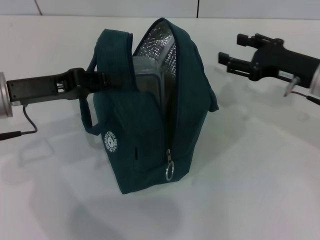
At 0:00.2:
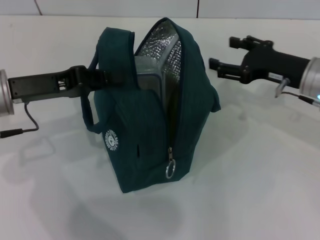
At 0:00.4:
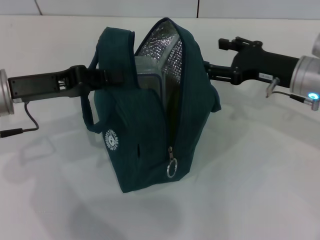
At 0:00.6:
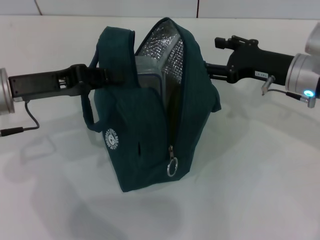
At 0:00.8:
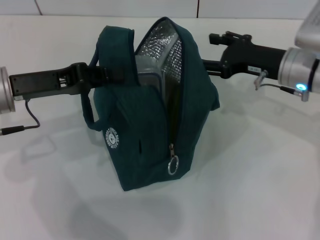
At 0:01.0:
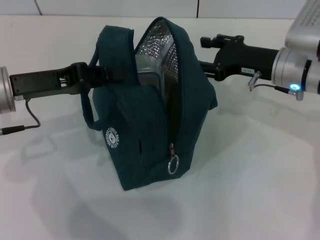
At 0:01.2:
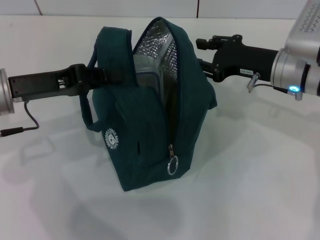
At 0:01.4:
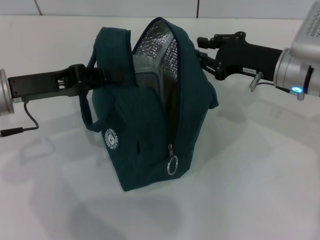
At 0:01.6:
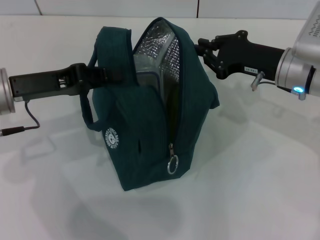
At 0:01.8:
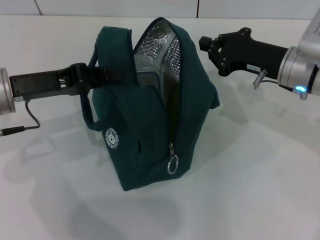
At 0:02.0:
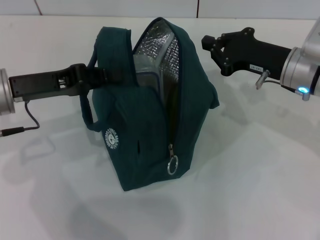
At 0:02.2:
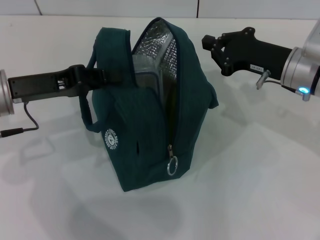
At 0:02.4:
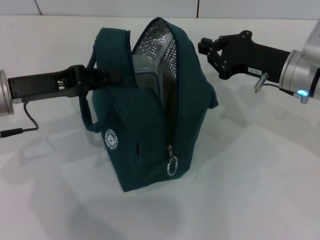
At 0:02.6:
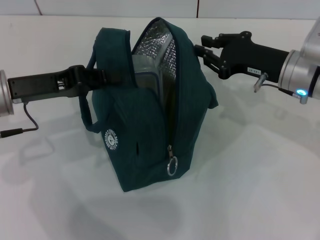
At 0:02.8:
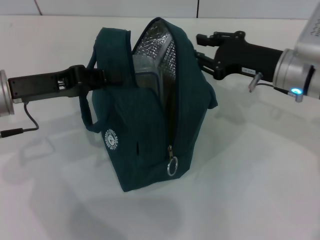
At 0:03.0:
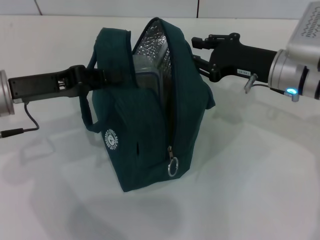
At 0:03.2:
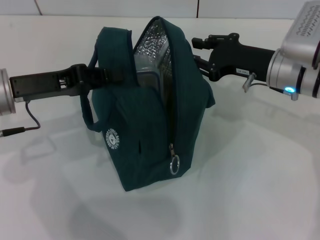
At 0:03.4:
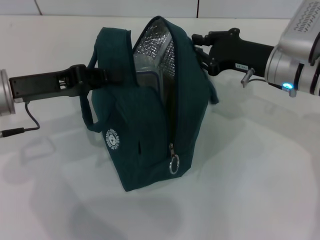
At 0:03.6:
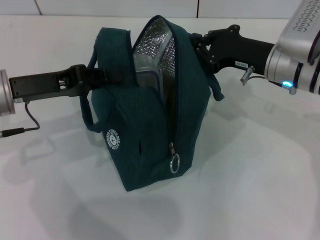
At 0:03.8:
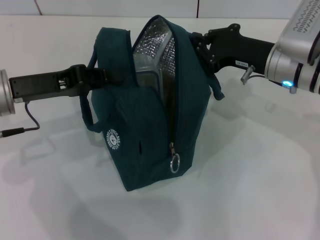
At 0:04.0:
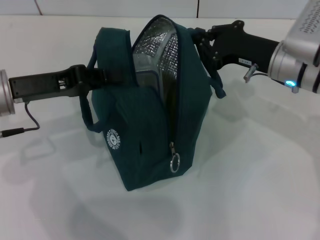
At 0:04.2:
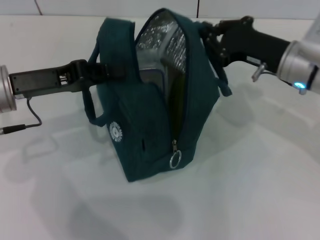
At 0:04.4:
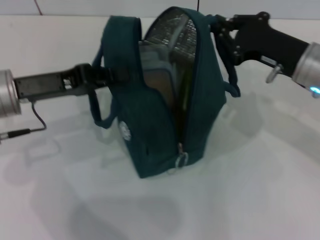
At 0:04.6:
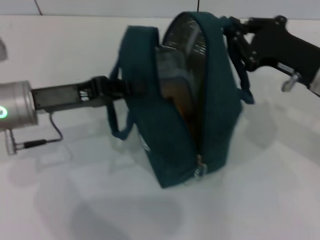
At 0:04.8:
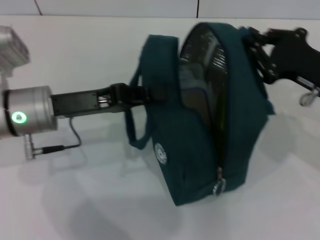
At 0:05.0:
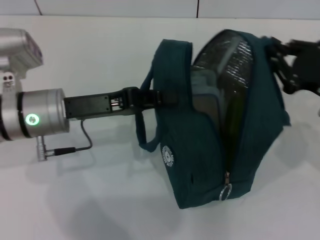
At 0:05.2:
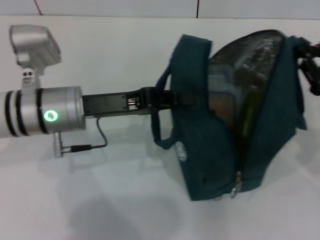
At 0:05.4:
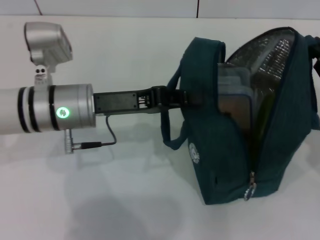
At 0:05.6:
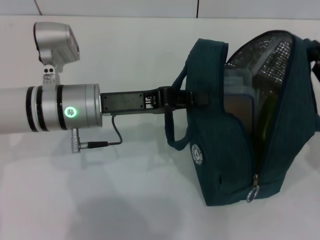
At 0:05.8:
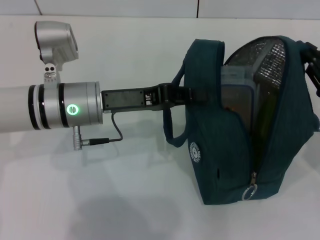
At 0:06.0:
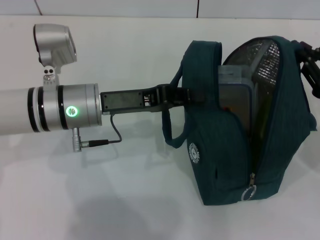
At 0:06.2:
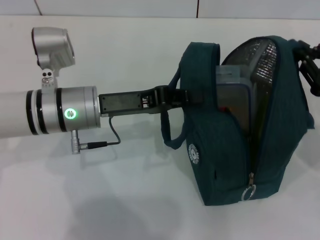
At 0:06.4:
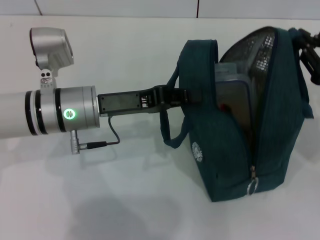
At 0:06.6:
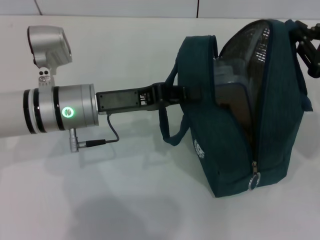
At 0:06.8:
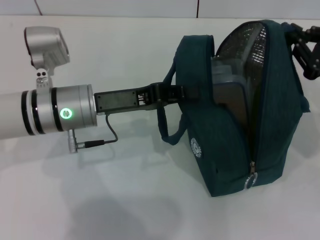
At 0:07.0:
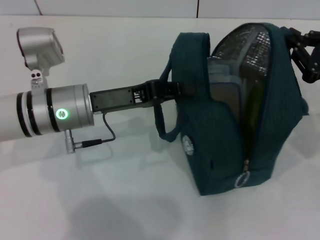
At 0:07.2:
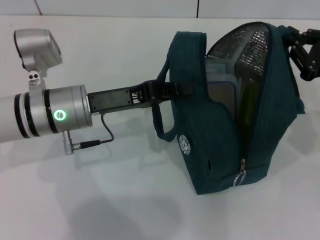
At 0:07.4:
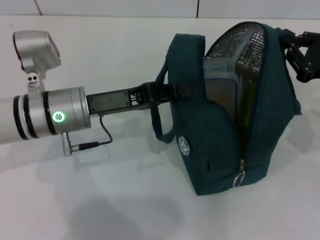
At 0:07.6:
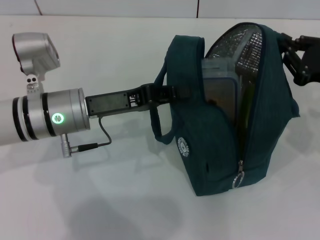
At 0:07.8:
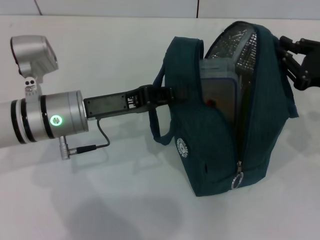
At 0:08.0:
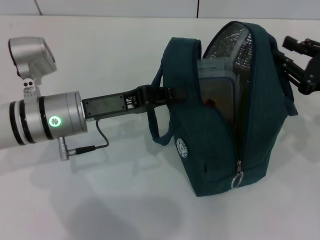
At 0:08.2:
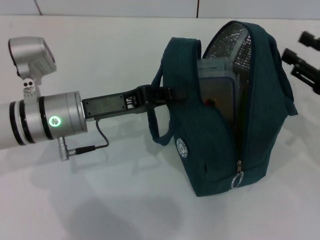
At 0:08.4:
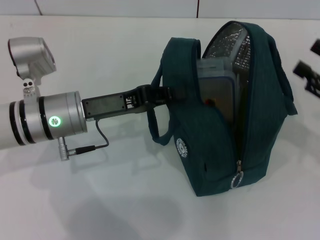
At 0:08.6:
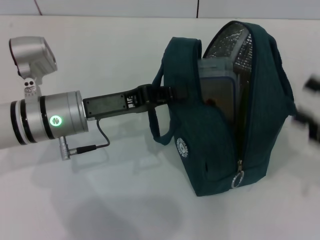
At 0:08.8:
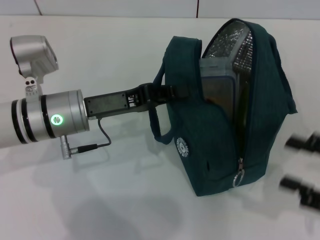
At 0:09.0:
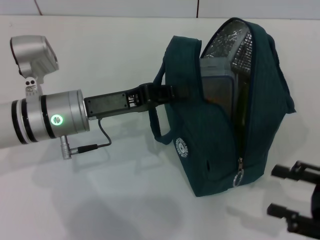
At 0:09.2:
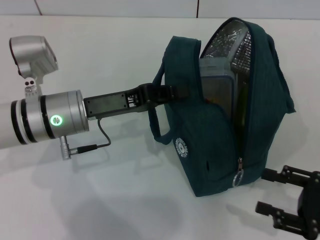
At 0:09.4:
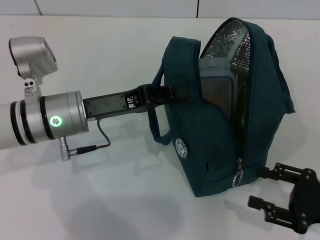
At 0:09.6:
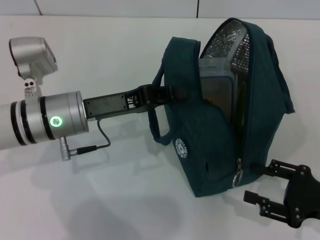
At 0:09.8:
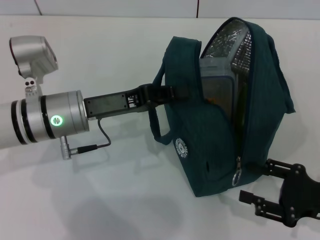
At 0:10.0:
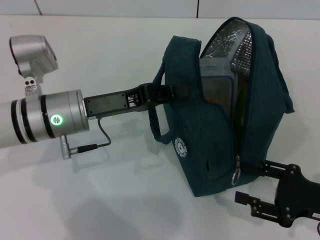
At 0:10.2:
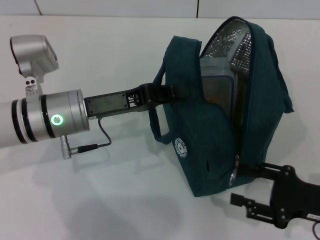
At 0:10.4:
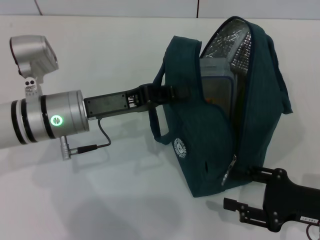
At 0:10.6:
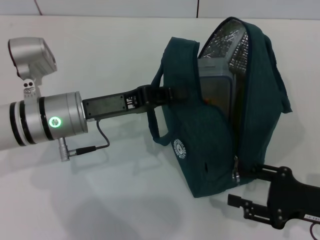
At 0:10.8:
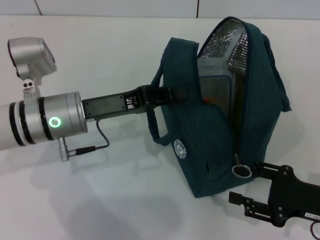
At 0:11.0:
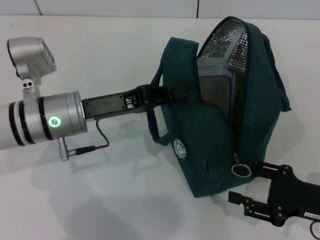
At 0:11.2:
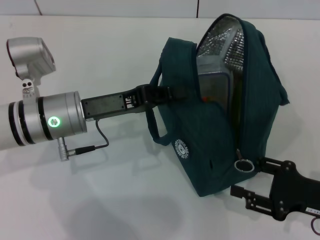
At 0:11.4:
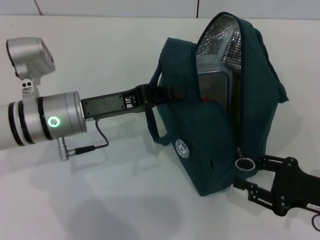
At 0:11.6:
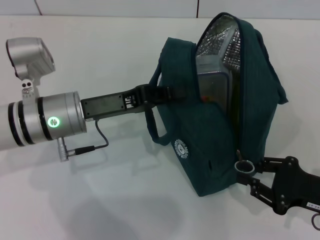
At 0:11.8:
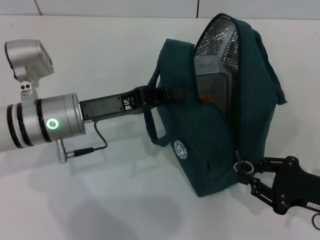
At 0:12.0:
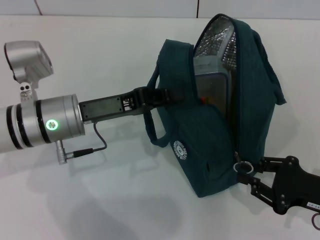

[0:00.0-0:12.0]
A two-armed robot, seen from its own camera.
Step, 0:00.0 to 0:08.2: Hold the lunch bag with your right hand.
0:00.0 to 0:01.6: The right gripper ends up some 5 cm from where it was, and closes.
0:01.6 to 0:03.0: The two grippers keep their place.
0:04.4 to 0:06.0: The right gripper goes about 10 cm to the right and backward. The left gripper moves to the right, about 10 cm.
0:07.6 to 0:09.0: The right gripper moves backward, some 15 cm, and opens up.
0:09.0 to 0:10.4: The right gripper ends up roughly 5 cm from where it was.
0:10.4 to 0:12.0: There are only small adjustments of the grippers.

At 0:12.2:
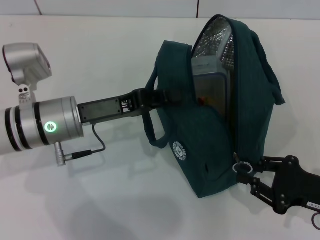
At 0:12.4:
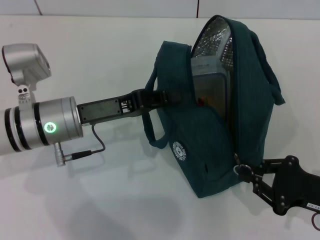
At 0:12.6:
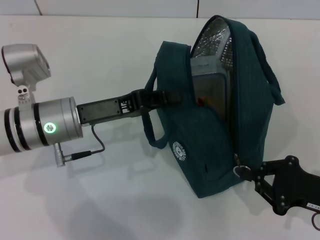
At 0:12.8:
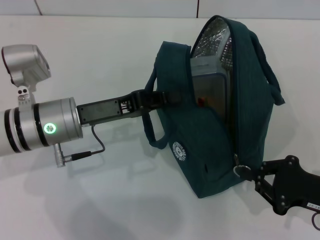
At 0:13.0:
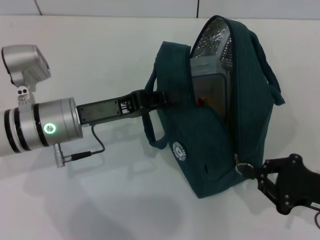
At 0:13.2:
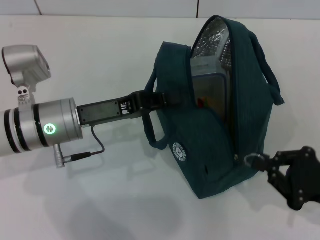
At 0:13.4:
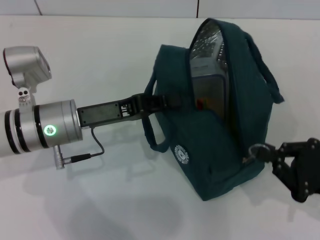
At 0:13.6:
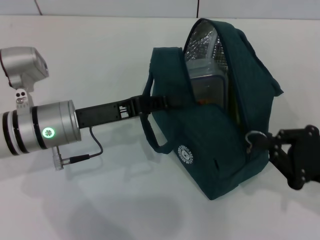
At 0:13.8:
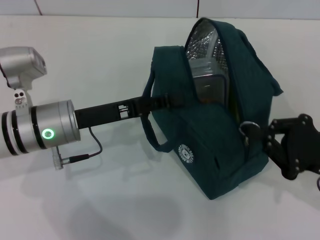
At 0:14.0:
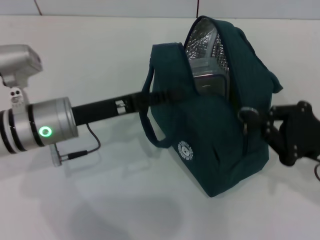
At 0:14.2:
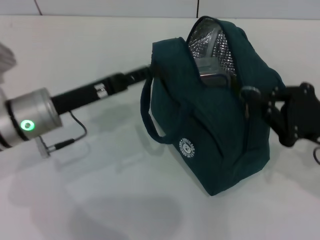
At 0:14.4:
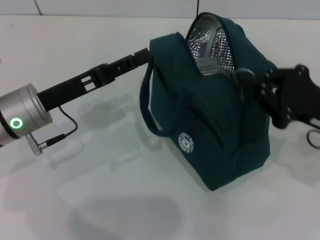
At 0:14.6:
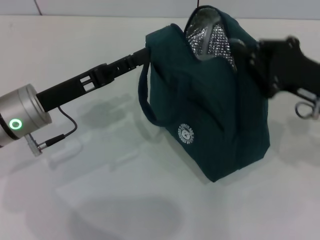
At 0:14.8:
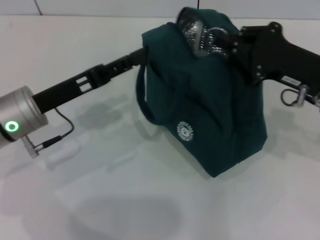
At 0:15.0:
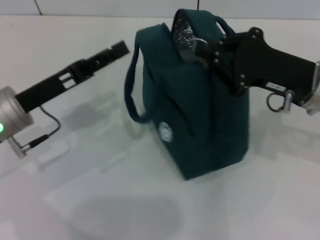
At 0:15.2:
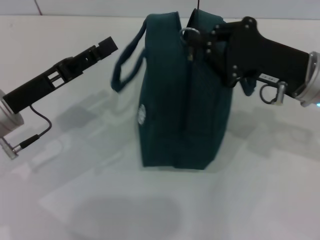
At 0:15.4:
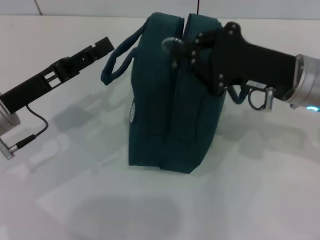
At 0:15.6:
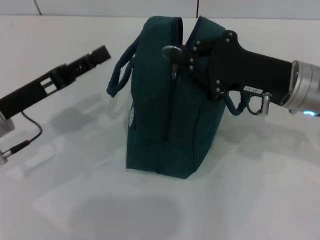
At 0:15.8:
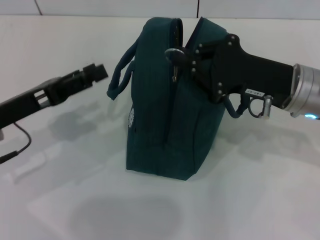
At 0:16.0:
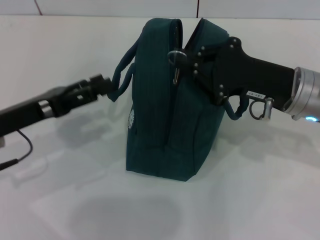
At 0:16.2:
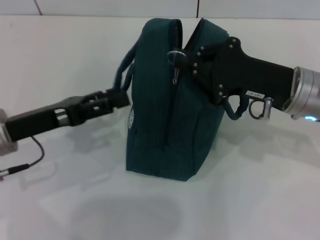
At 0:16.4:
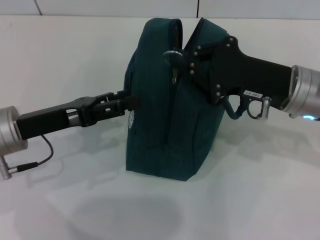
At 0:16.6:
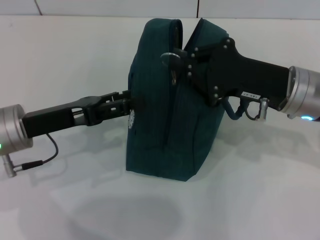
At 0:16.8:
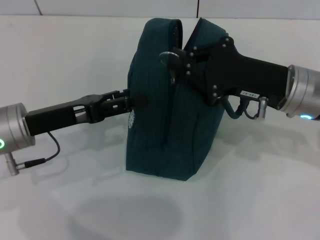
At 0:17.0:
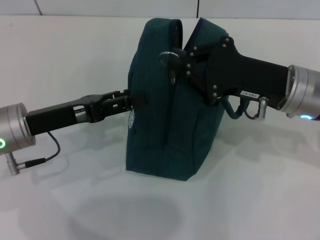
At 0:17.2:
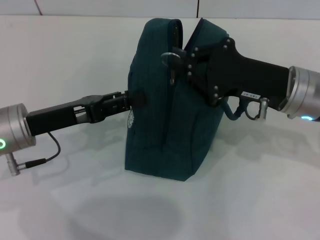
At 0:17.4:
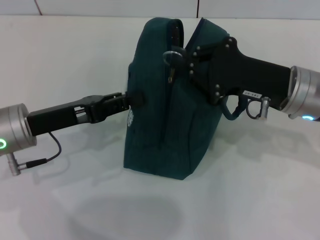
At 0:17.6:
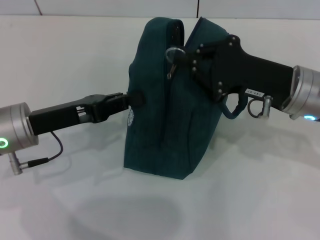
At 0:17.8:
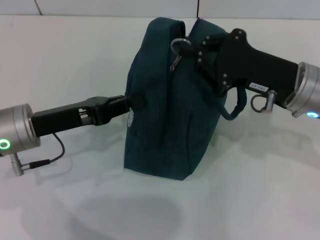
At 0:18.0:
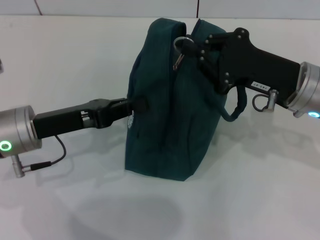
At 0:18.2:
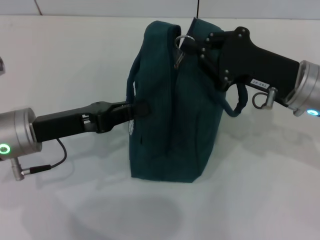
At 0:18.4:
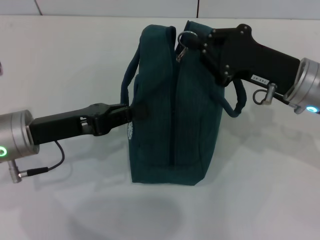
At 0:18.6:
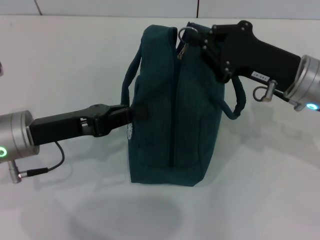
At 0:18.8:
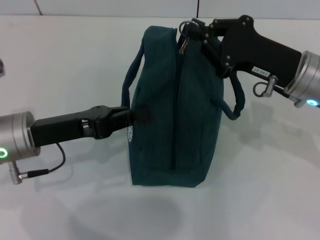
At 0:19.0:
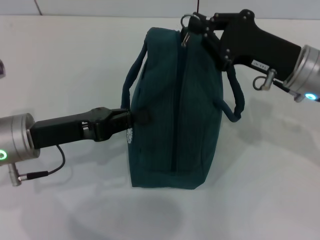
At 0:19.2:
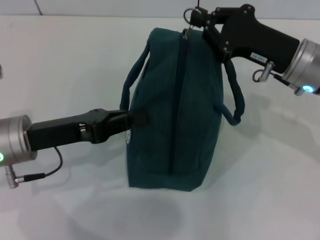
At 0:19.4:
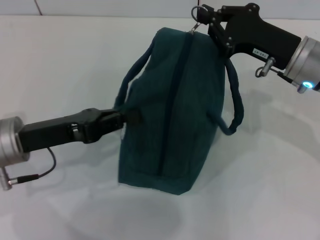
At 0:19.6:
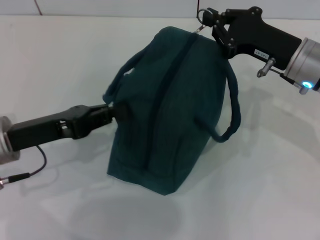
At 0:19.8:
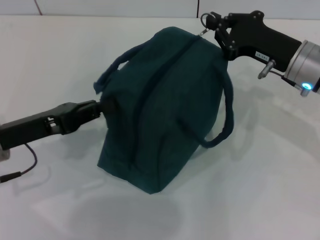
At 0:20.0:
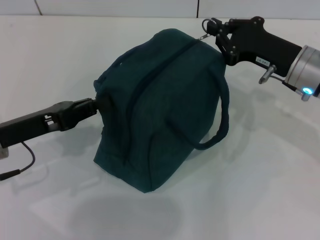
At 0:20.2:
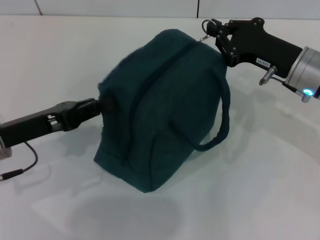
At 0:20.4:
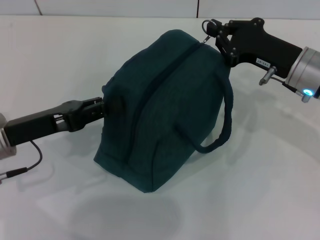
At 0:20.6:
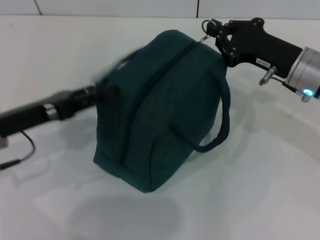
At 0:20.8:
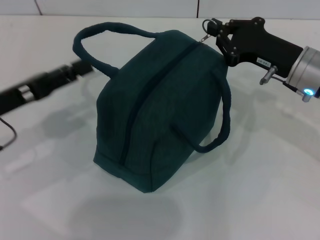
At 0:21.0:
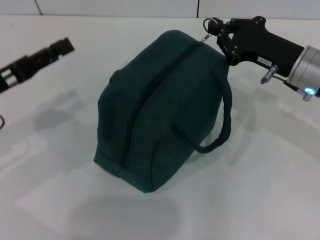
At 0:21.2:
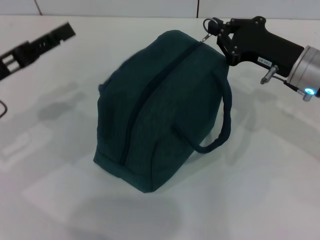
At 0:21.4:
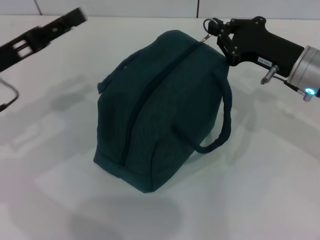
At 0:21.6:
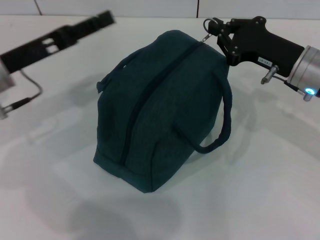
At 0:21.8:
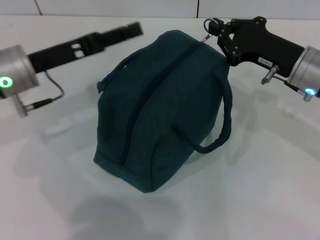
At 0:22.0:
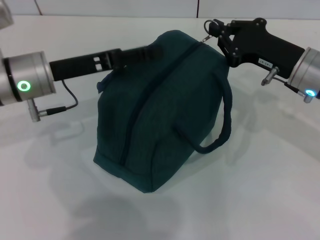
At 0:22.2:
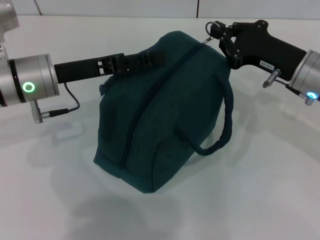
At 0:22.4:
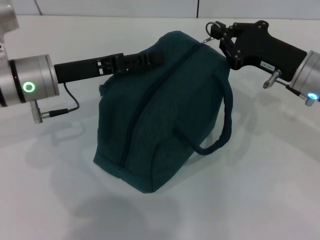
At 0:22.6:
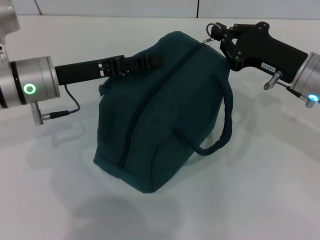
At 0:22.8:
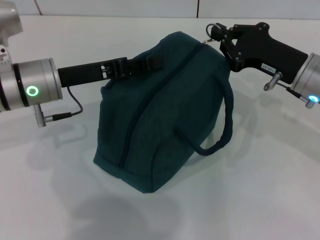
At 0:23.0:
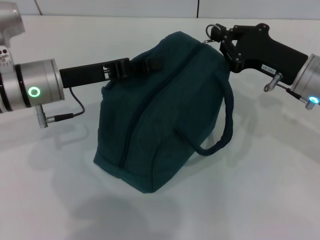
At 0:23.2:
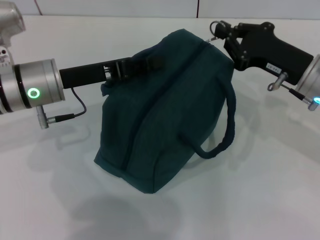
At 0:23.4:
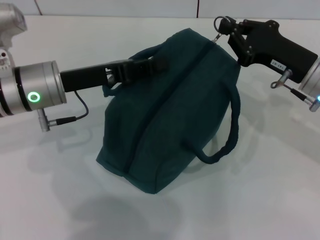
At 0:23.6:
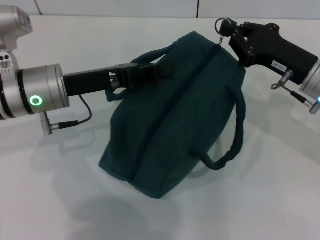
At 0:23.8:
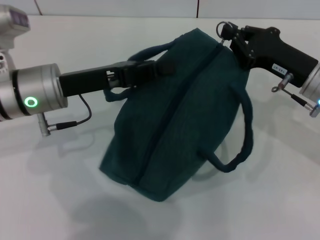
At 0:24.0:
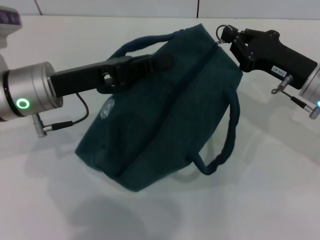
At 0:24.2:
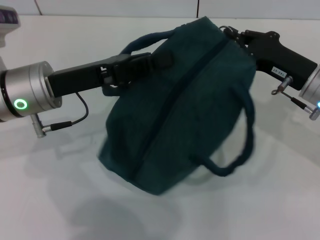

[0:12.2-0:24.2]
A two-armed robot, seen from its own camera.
Step, 0:12.2 to 0:14.4: Hold the lunch bag with your left hand.
0:12.2 to 0:13.8: There are only small adjustments of the grippers.
0:13.8 to 0:15.2: The right gripper shifts approximately 15 cm forward, to the left and upward. The left gripper shifts about 5 cm to the left, and opens up.
0:16.6 to 0:18.2: The left gripper closes.
0:19.8 to 0:21.2: The left gripper shifts by some 5 cm, and opens.
0:21.2 to 0:22.6: The left gripper moves to the right and forward, roughly 10 cm.
0:22.6 to 0:24.2: The left gripper closes.
